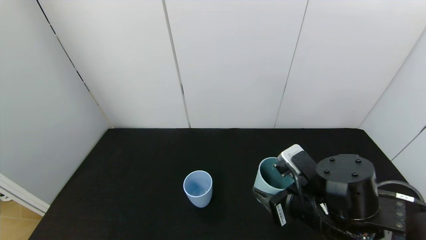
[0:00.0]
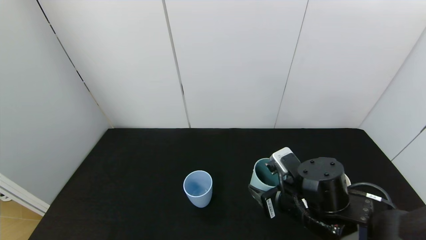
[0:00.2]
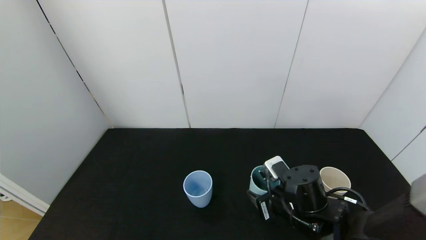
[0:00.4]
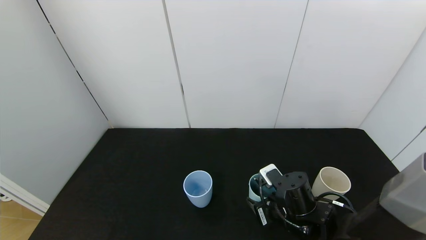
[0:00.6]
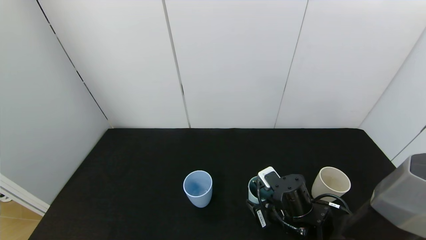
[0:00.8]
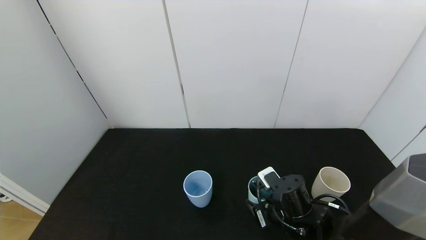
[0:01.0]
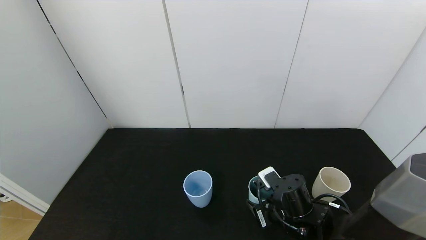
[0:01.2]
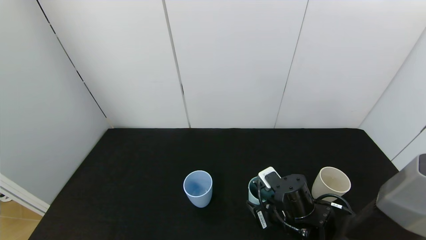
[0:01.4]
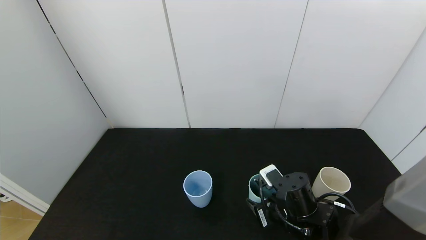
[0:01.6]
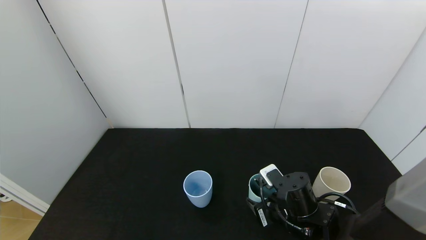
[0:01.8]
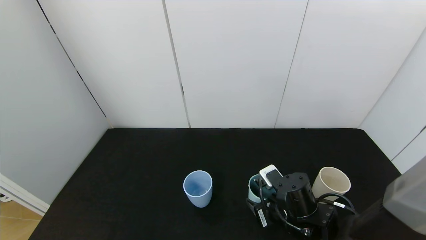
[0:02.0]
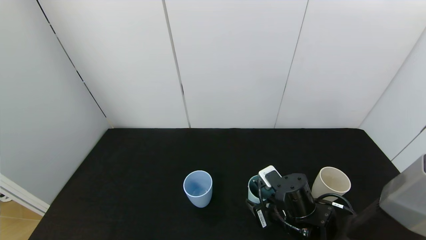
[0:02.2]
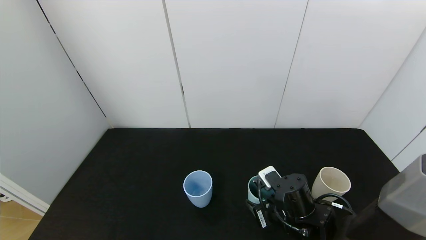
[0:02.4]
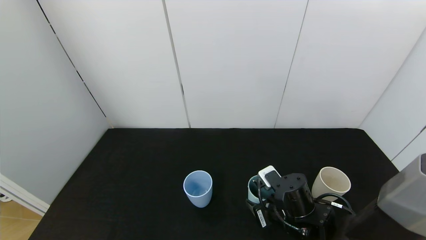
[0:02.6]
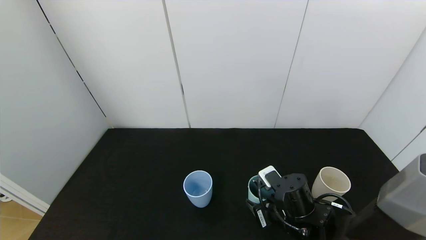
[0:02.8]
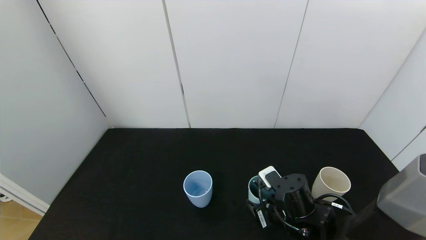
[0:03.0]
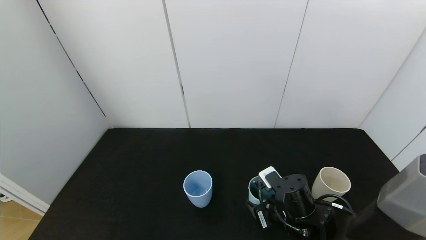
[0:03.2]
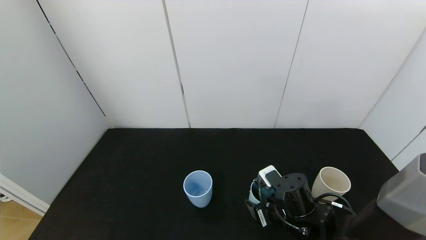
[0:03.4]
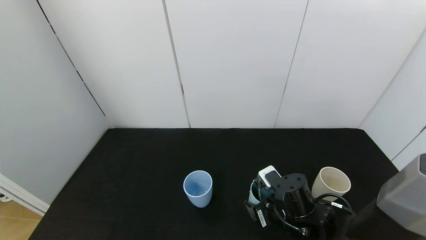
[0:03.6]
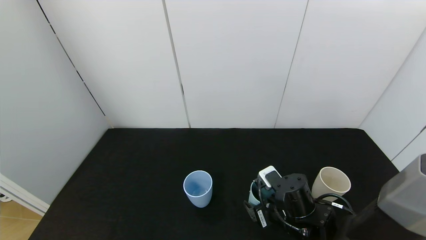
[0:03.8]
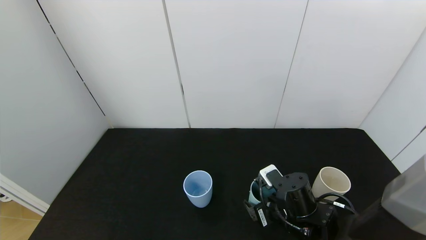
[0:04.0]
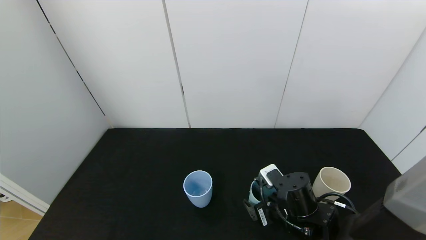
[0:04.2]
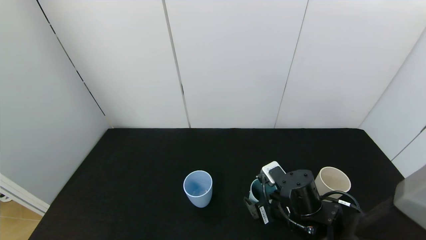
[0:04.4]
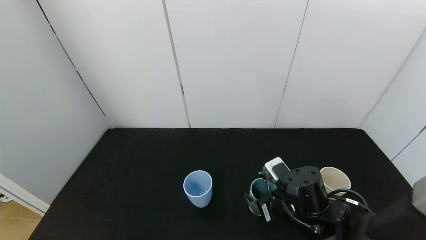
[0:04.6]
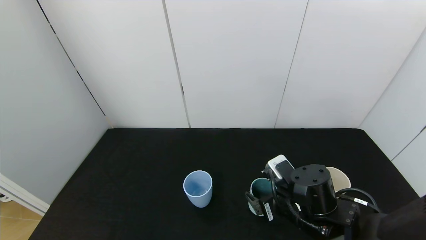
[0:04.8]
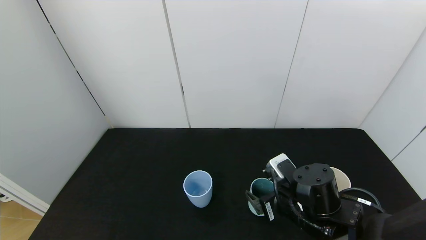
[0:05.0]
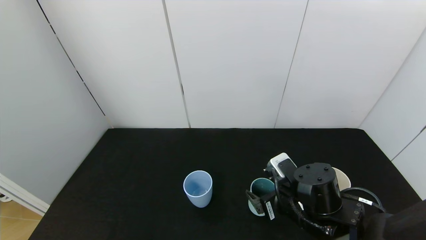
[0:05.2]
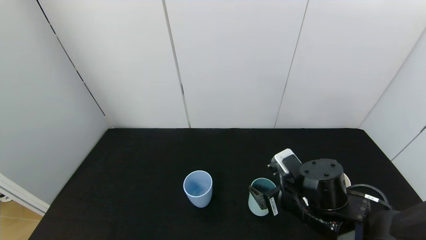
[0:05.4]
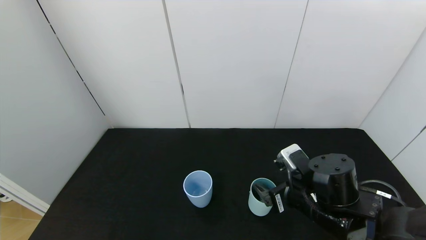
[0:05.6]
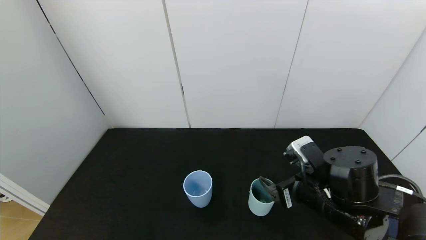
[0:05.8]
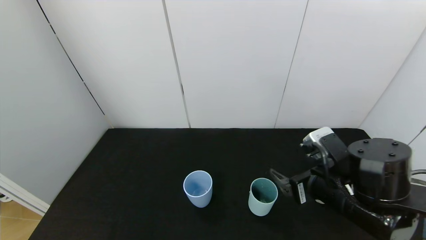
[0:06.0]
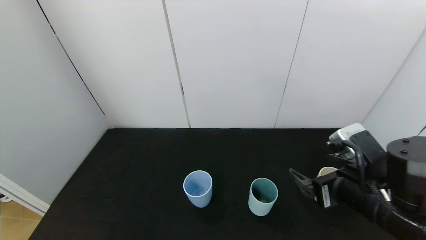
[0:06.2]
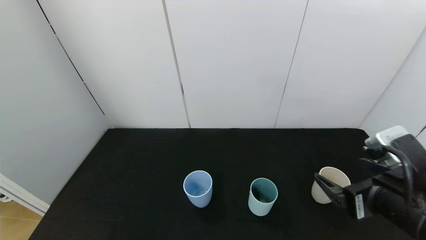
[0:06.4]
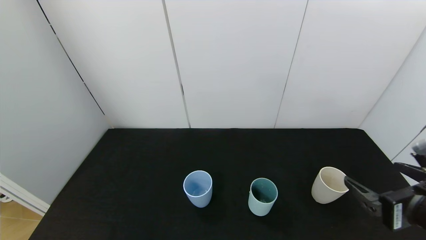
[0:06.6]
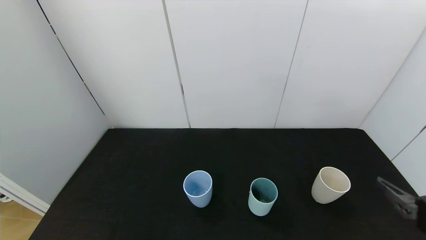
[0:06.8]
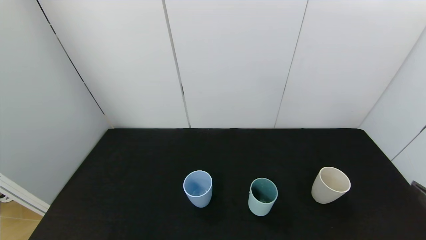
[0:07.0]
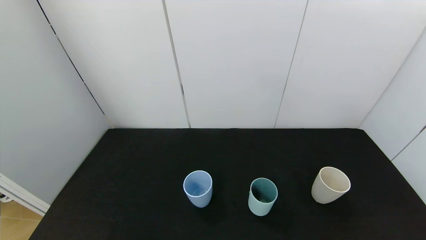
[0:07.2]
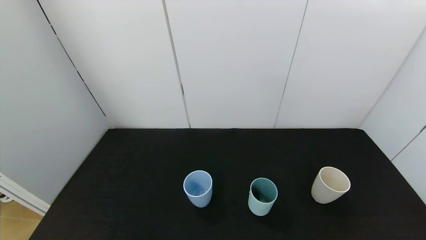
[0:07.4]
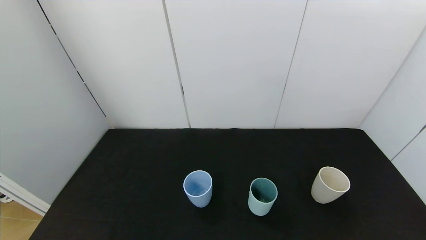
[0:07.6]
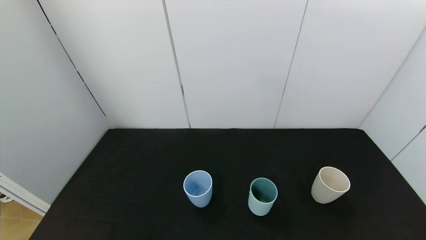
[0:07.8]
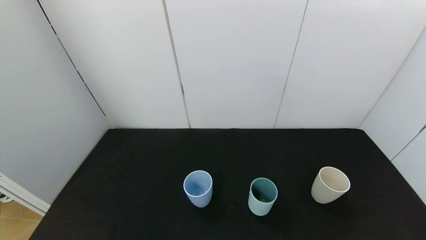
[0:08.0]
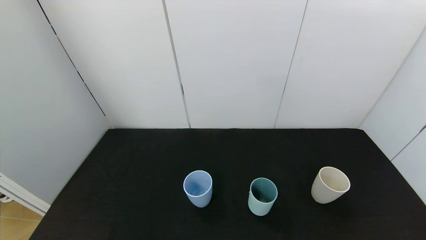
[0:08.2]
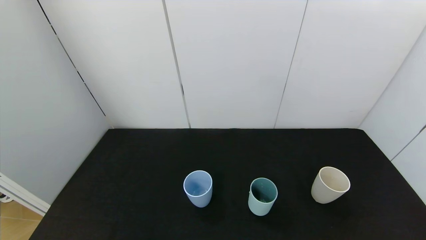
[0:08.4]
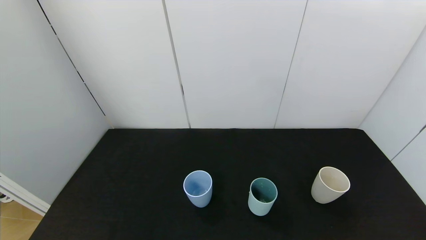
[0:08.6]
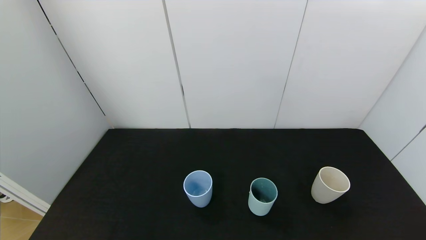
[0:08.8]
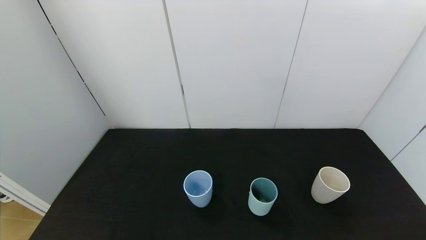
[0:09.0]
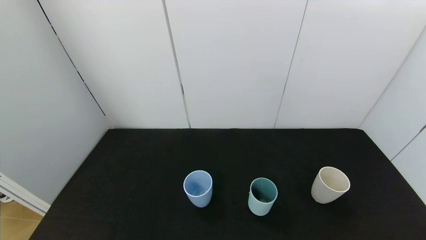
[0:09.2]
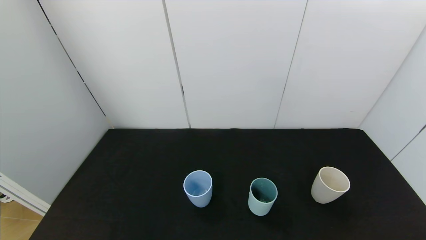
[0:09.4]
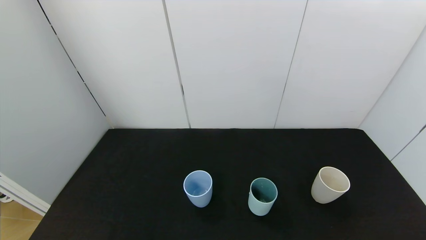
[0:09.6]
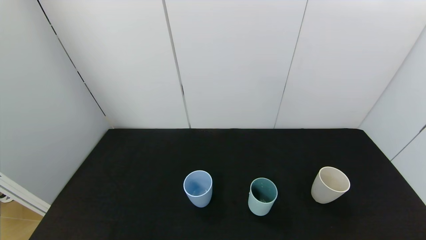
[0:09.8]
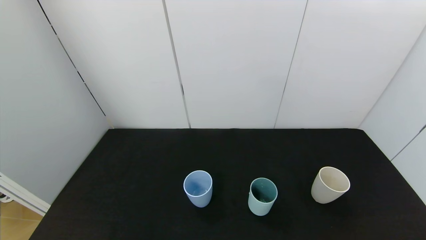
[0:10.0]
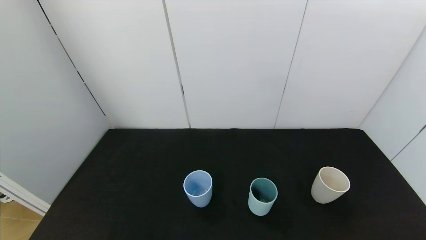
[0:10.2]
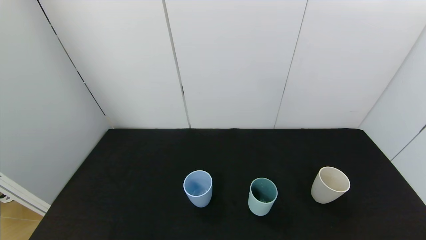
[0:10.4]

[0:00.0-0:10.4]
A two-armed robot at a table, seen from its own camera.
Task of the whole recording: use the gripper to pour the water into the other two cups on black table.
Step, 0:00.0 to 0:04.8: Place the green cup with the right gripper.
0:00.0 to 0:01.4: The right gripper heads downward, covering approximately 10 cm.
0:01.4 to 0:03.0: Both grippers stay put.
0:03.0 to 0:04.4: The right gripper opens.
0:04.4 to 0:06.0: The right gripper heads upward, covering roughly 10 cm.
0:06.0 to 0:07.4: The right gripper is displaced backward and to the right by some 25 cm.
